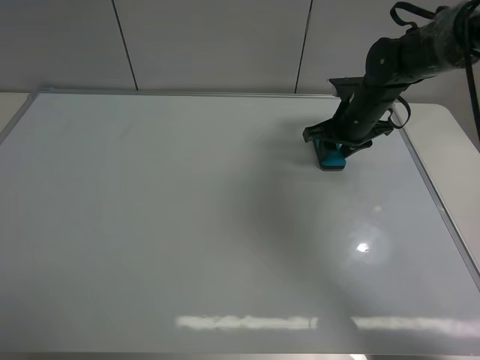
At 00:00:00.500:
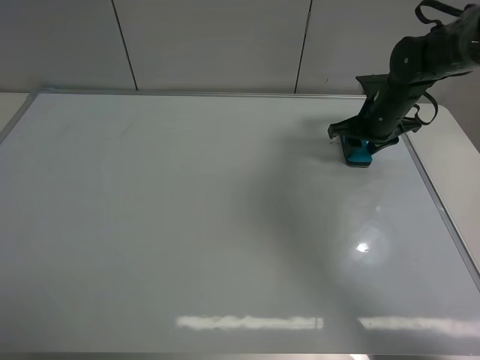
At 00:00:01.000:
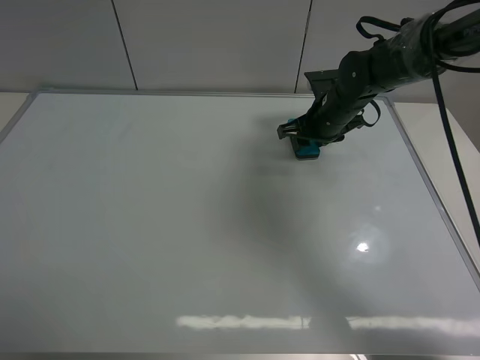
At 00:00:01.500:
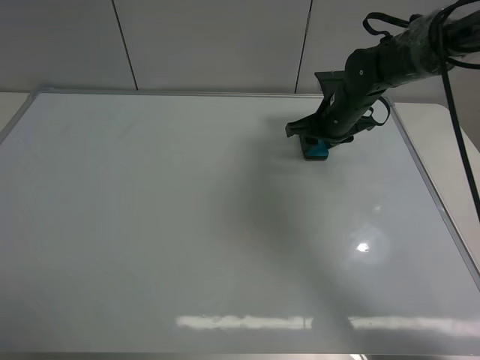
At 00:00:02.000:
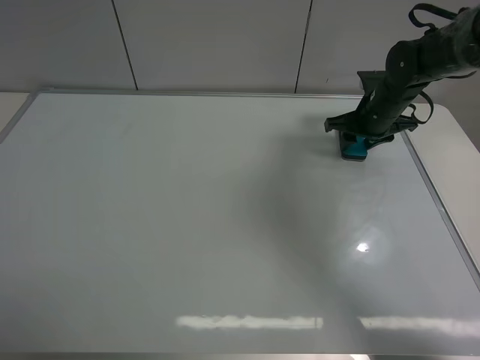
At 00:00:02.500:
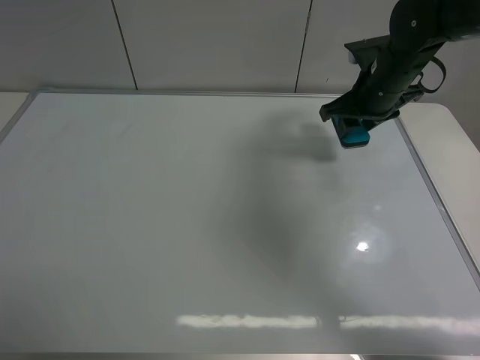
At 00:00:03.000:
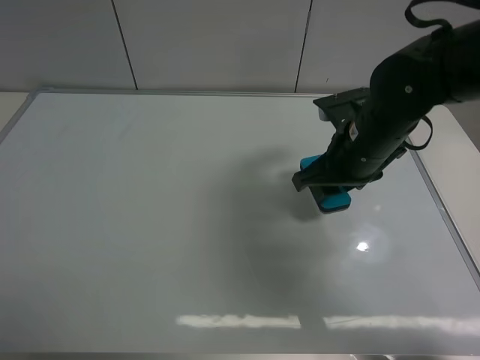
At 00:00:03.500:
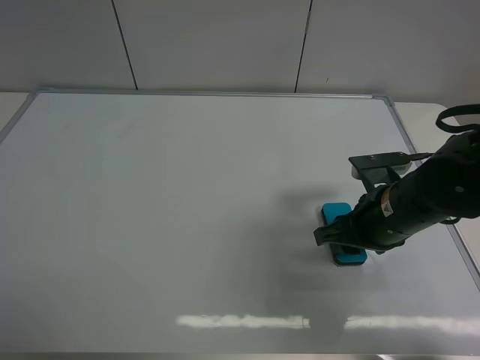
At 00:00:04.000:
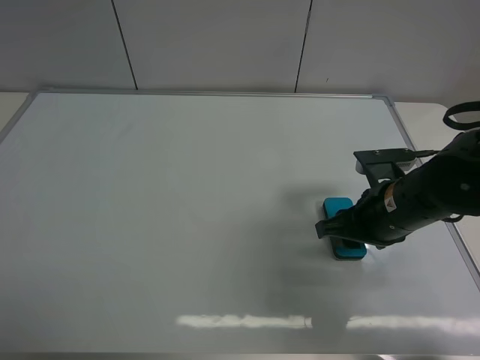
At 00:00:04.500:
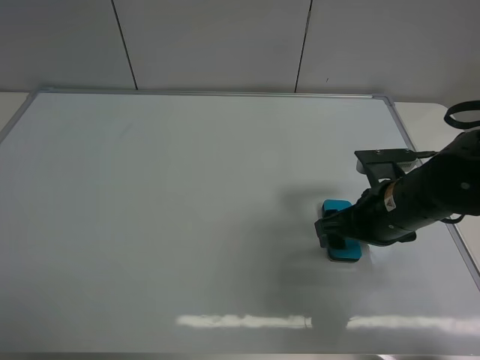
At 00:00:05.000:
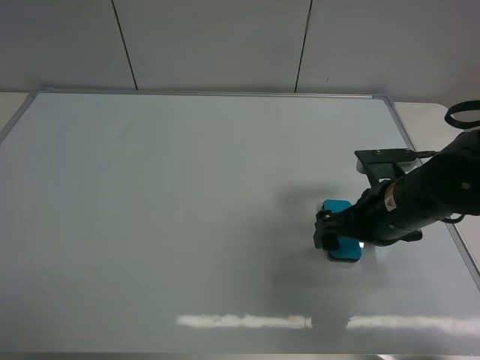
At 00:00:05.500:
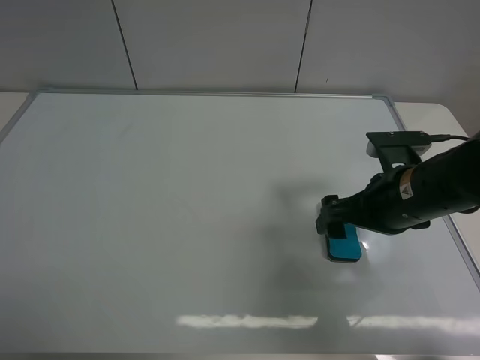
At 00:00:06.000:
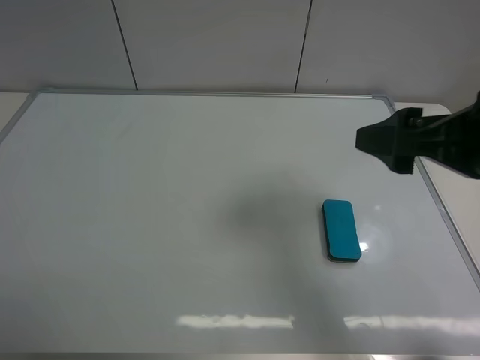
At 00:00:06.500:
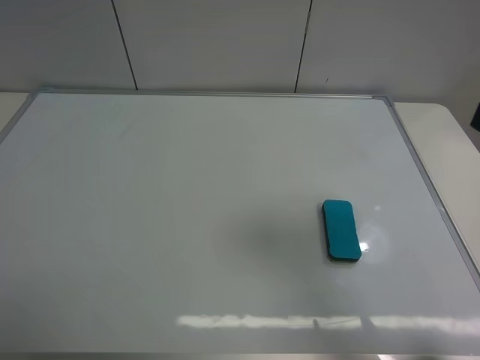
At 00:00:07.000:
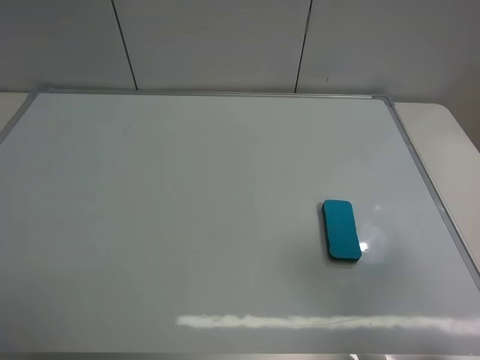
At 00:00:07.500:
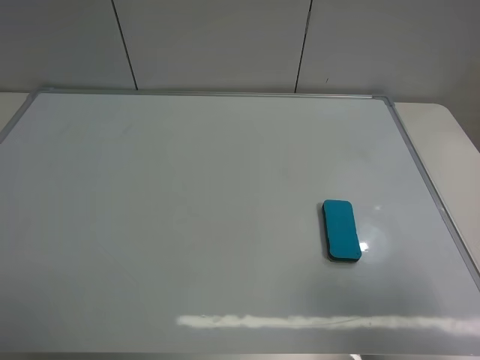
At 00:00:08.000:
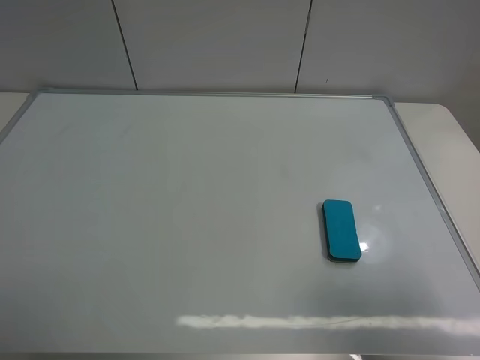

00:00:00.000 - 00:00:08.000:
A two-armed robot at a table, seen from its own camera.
Task of the whole recording: use the left gripper to place the eraser in the right, use the right gripper to pick up the eraser, wipe the notes on the whiteboard clean, and then put it down.
Step, 00:00:00.000 - 00:00:02.000: Wipe off the writing on the board with right gripper.
Step, 00:00:02.500 - 00:00:04.000: Place the board eraser on the right side of board with right gripper.
00:00:00.000 - 00:00:02.000: The right gripper reaches about 5 cm to the left, then returns.
00:00:02.000 - 00:00:04.000: The right gripper shifts some 20 cm backward.
00:00:04.000 - 00:00:06.000: The right gripper goes approximately 15 cm upward and backward, and opens.
00:00:06.000 - 00:00:08.000: The right gripper travels backward and to the right by roughly 15 cm.
